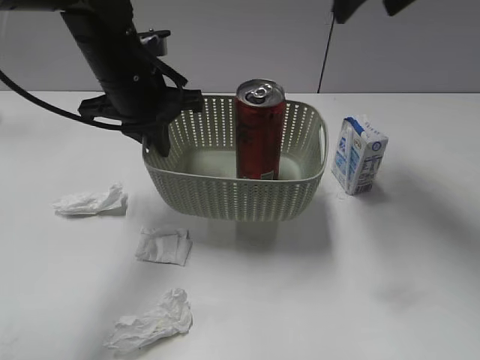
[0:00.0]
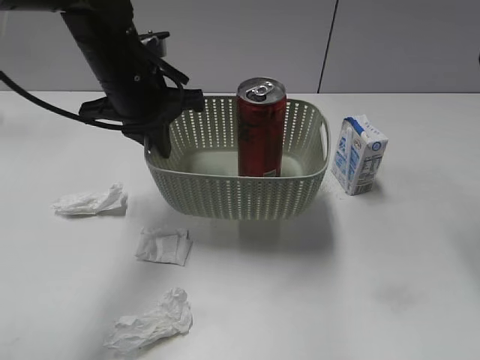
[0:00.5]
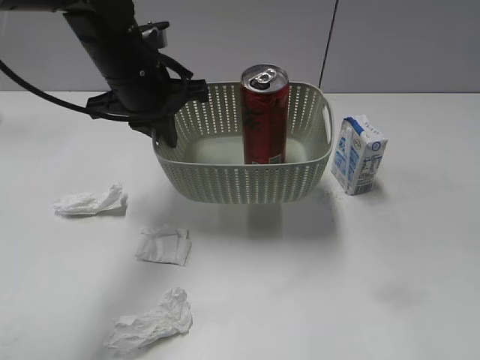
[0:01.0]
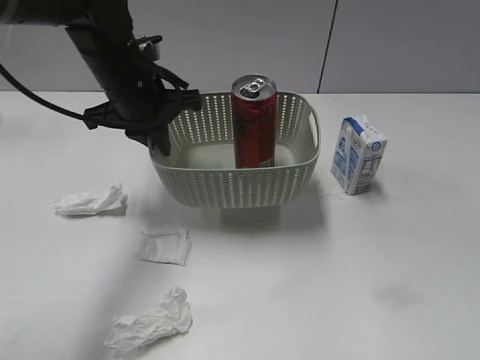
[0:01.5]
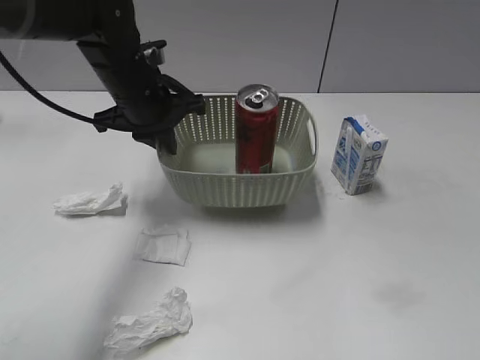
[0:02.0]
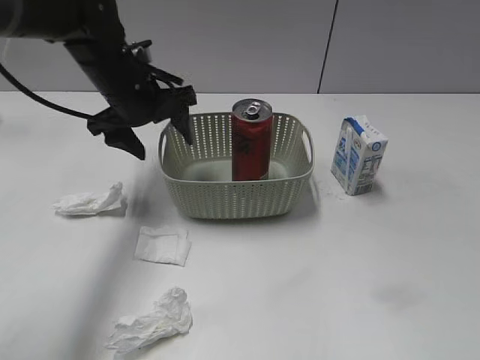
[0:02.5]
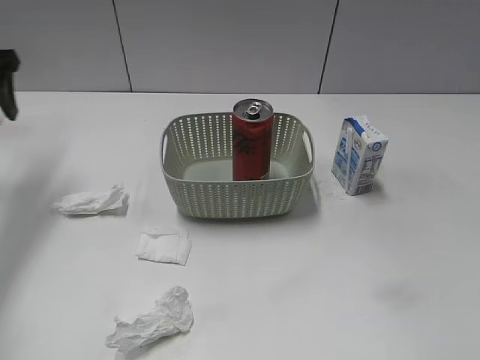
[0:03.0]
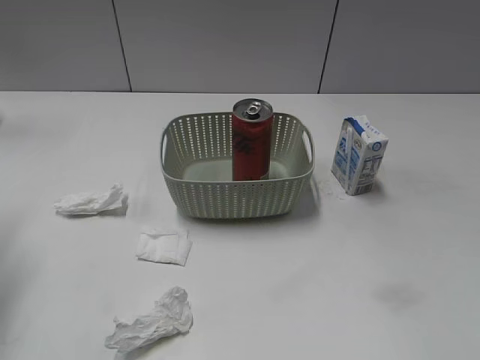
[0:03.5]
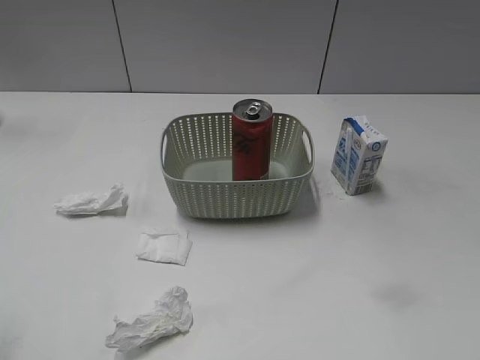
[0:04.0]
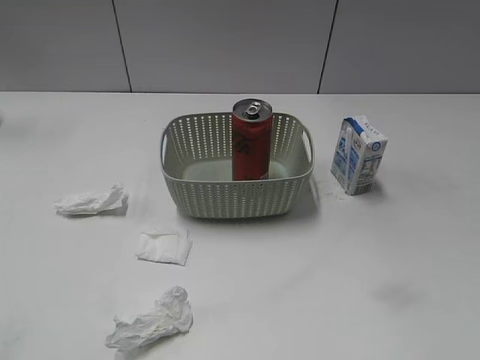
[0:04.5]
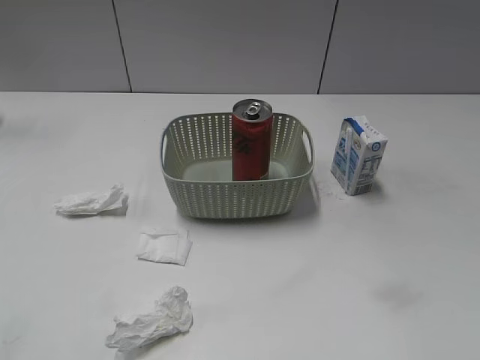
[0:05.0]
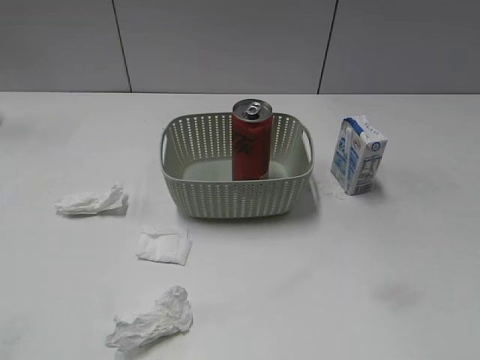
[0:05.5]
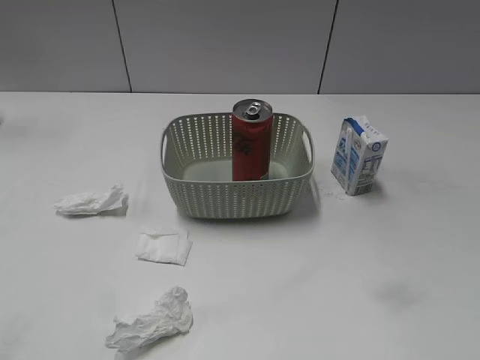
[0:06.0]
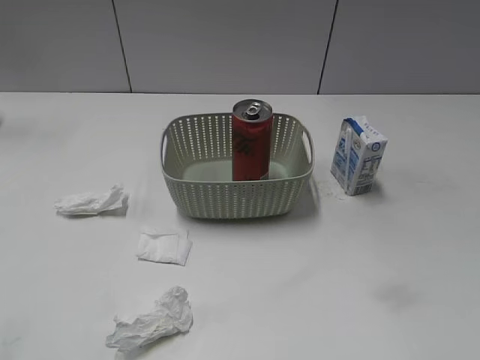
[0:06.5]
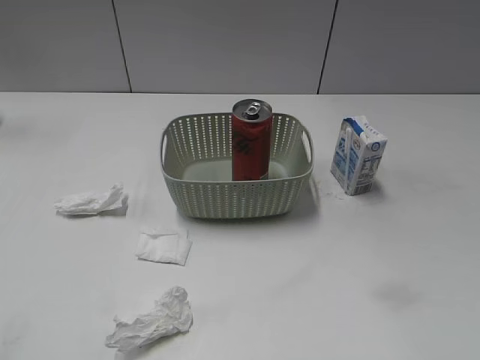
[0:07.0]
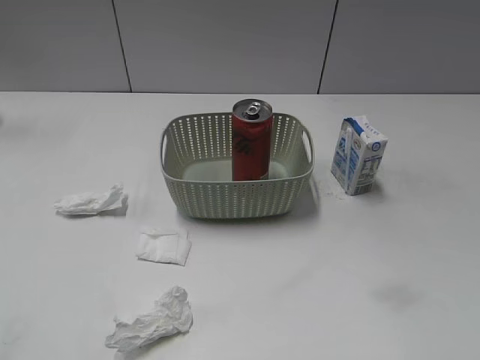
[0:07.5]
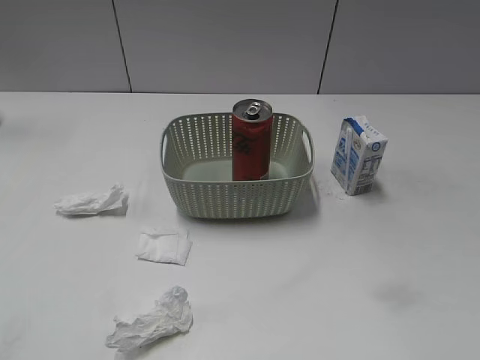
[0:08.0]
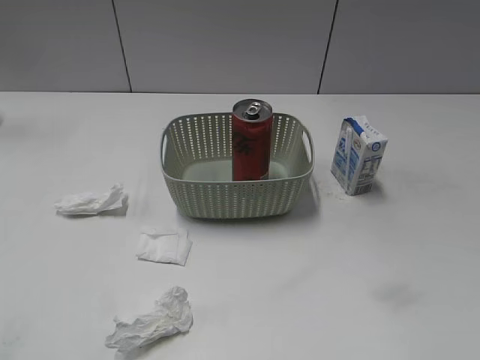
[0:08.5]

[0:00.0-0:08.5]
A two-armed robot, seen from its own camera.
Step, 0:00.0 to 0:02.5: Place the basket on the table with left gripper.
0:00.0 to 0:02.0: The right gripper goes roughly 35 cm backward.
0:02.0 to 0:04.0: The left gripper goes roughly 35 cm backward and to the left, and opens its fingers.
0:06.5 to 0:08.5: Both grippers stay about where they are.
